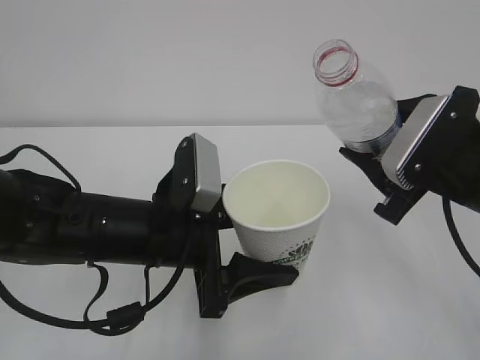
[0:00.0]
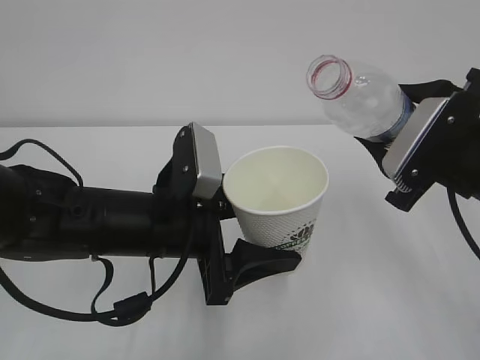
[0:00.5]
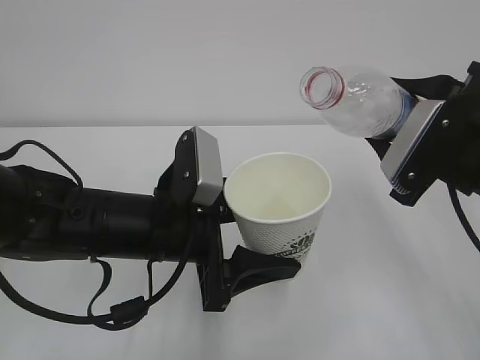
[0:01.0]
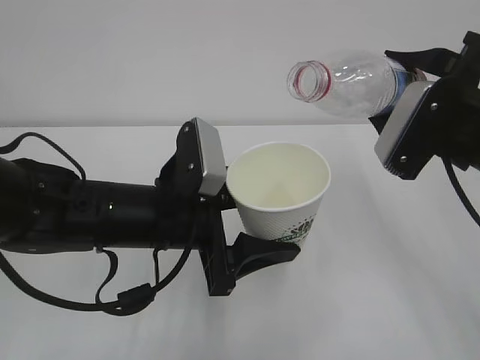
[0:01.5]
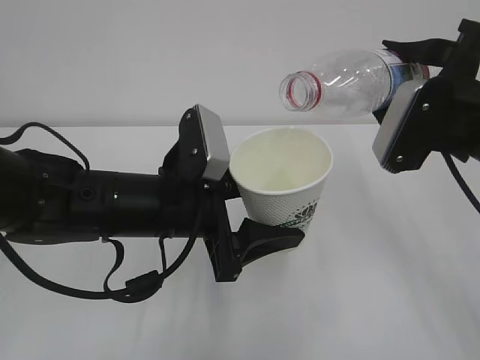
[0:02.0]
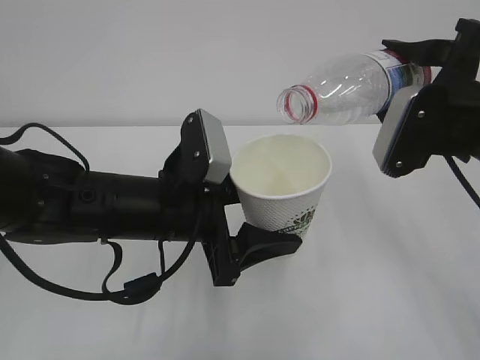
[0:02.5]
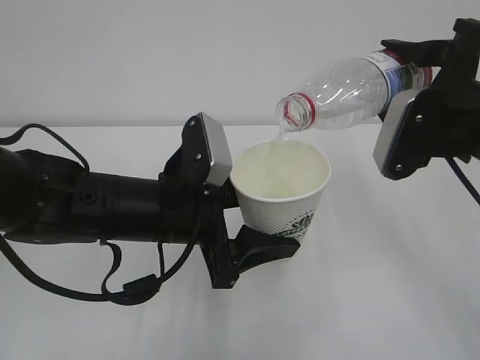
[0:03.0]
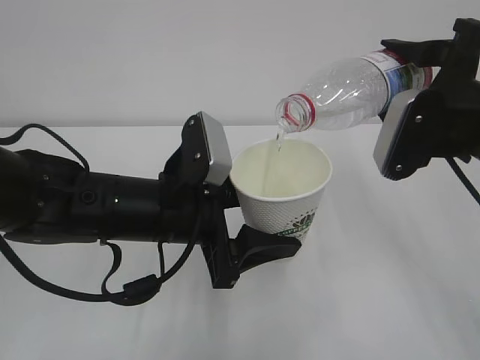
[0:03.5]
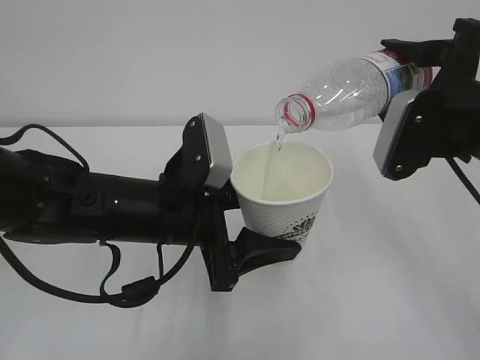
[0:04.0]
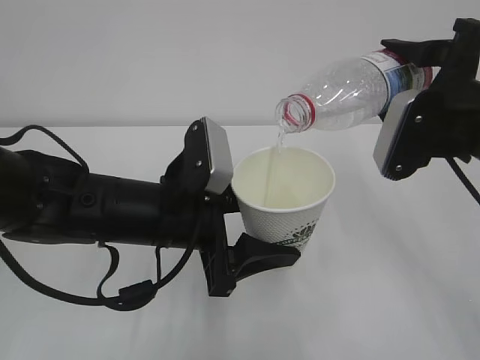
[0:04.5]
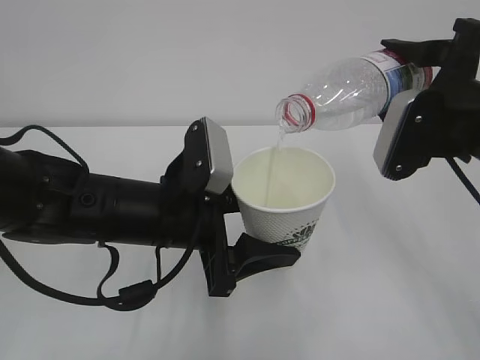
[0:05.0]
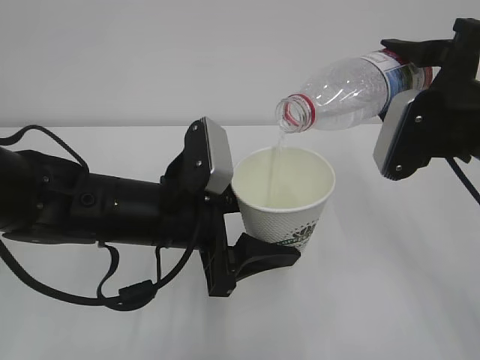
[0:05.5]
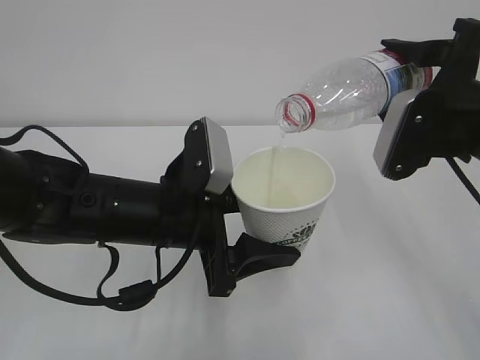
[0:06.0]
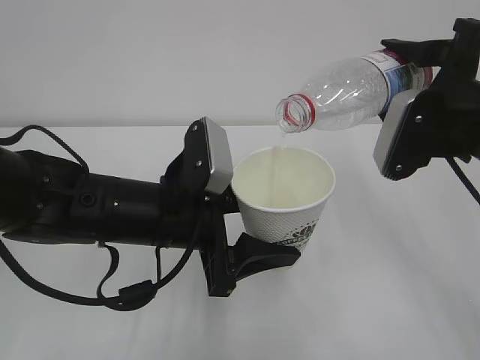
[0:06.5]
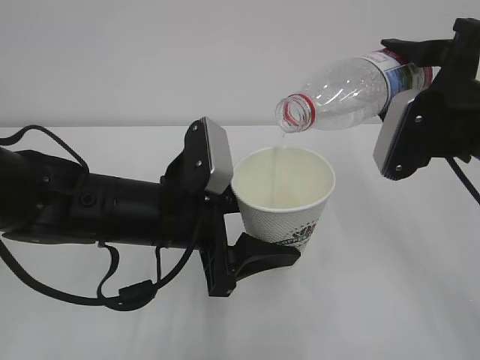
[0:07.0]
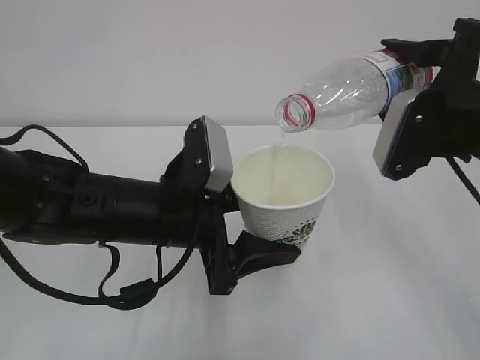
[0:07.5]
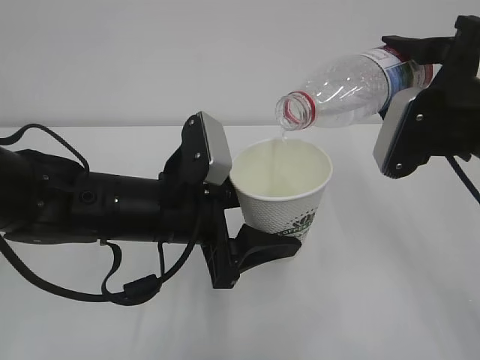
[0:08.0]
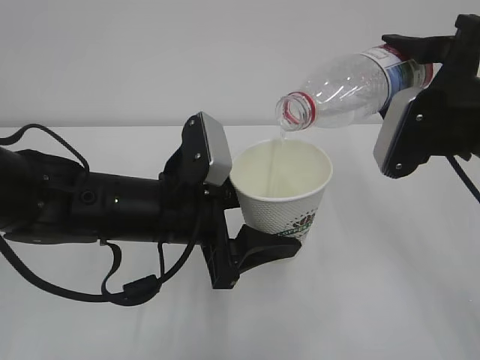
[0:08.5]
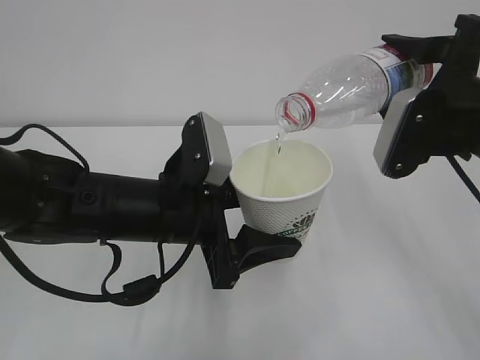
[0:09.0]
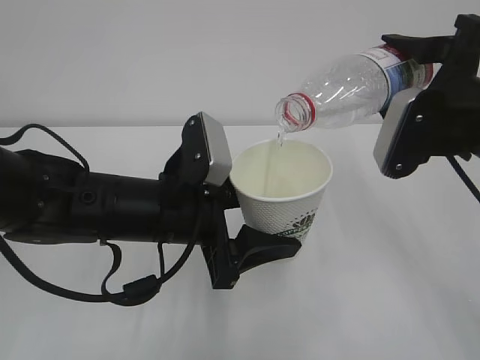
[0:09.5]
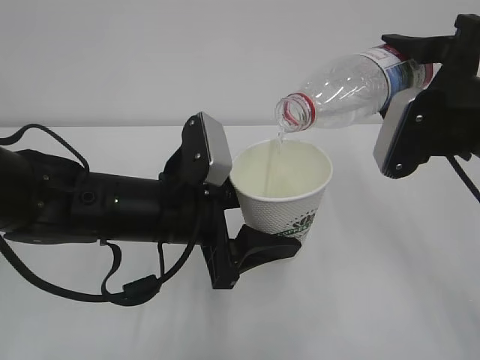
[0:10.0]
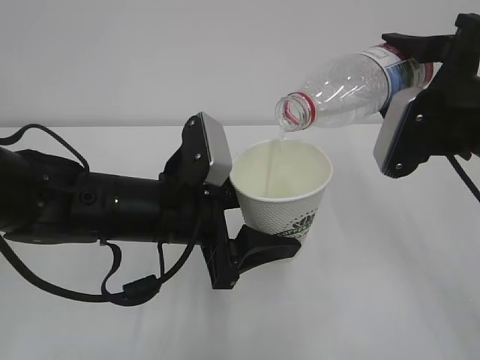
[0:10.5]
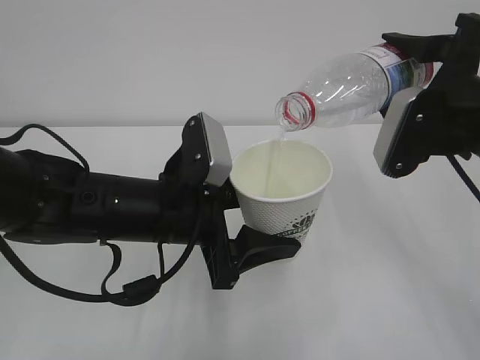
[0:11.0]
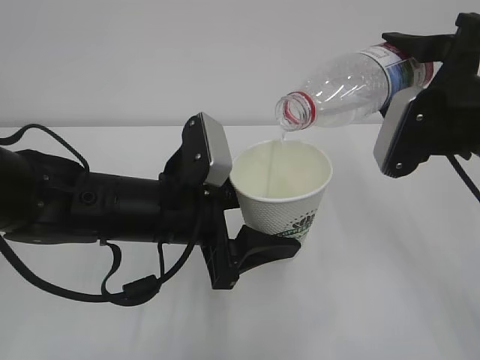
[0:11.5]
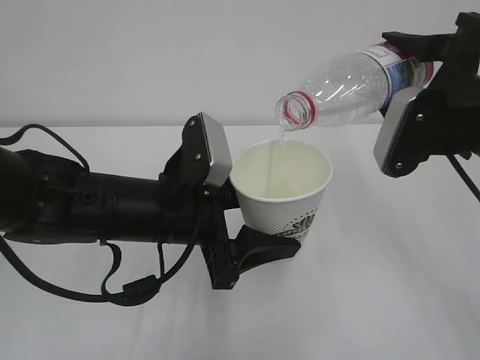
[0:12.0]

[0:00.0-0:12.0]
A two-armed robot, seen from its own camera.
0:02.0 to 0:04.0: There are only small adjustments of the grippers.
0:04.0 to 0:12.0: Neither gripper changes place.

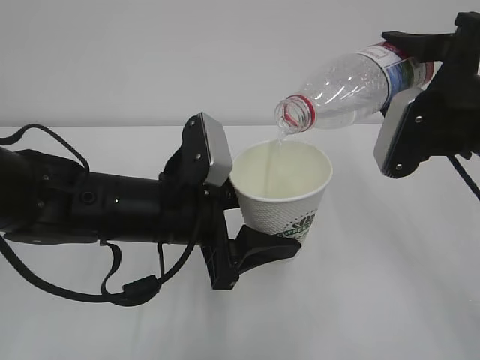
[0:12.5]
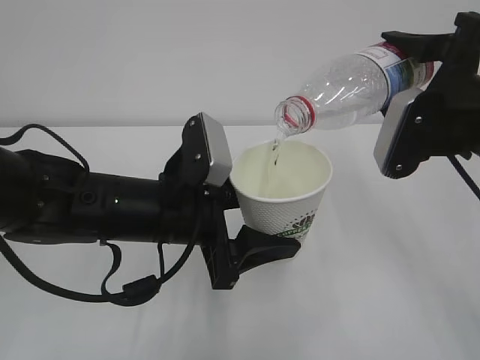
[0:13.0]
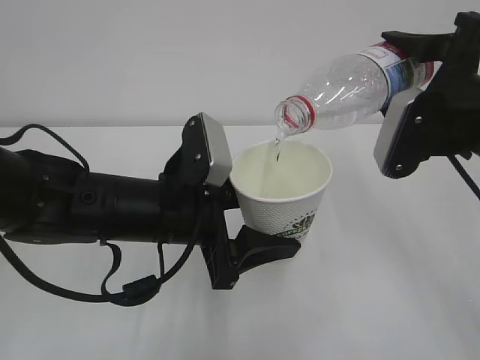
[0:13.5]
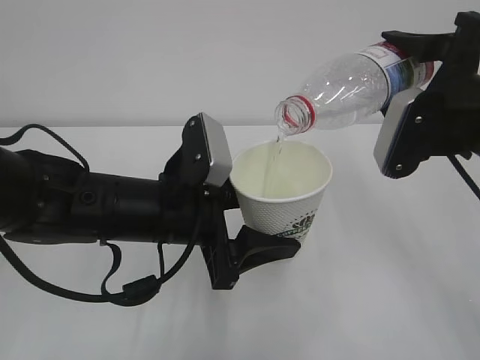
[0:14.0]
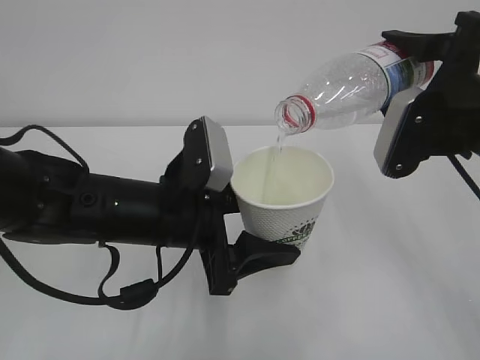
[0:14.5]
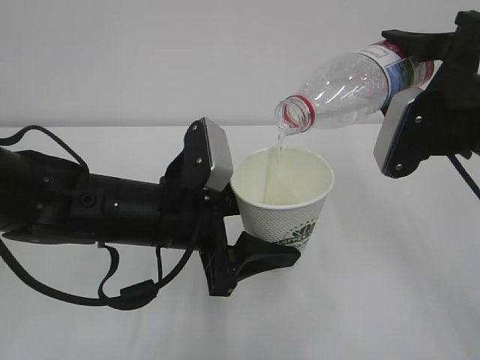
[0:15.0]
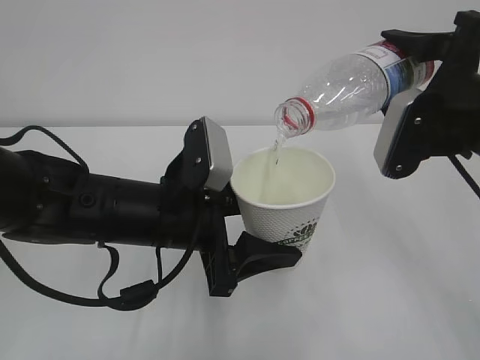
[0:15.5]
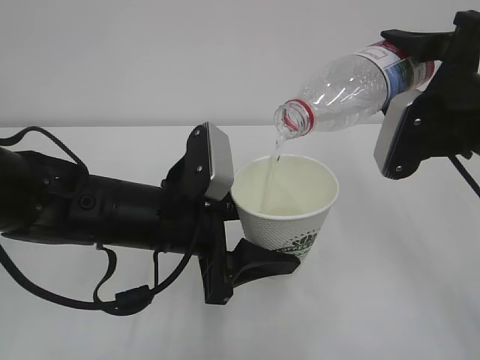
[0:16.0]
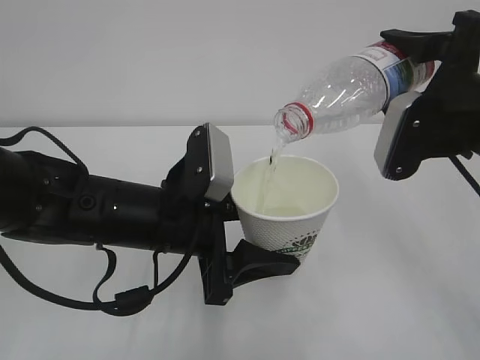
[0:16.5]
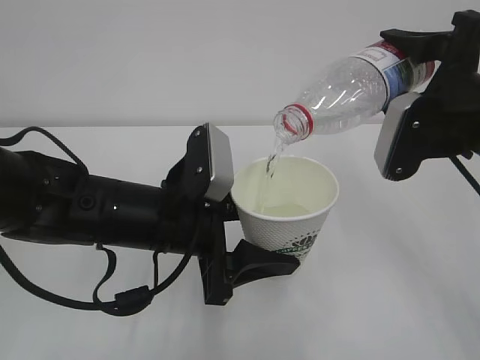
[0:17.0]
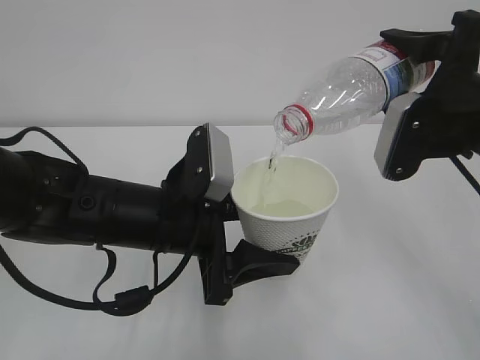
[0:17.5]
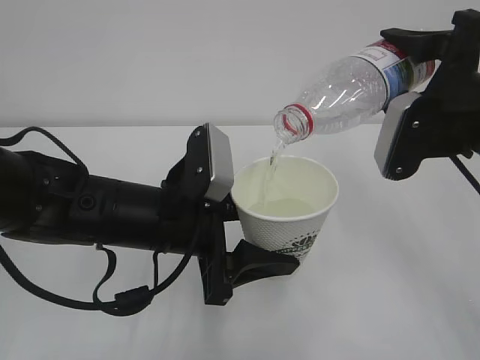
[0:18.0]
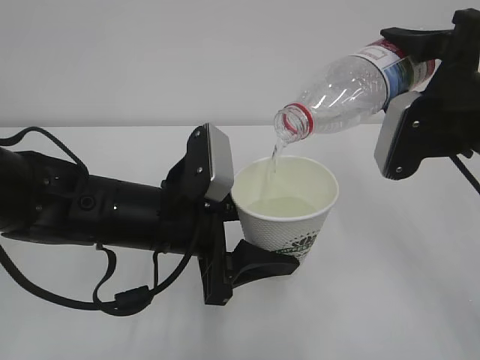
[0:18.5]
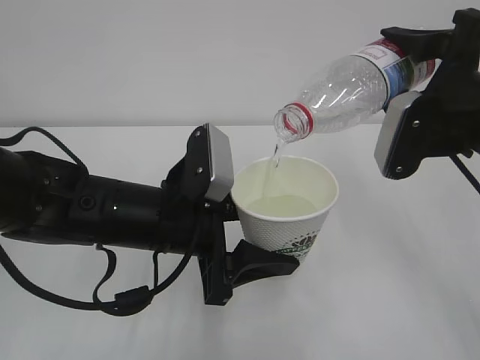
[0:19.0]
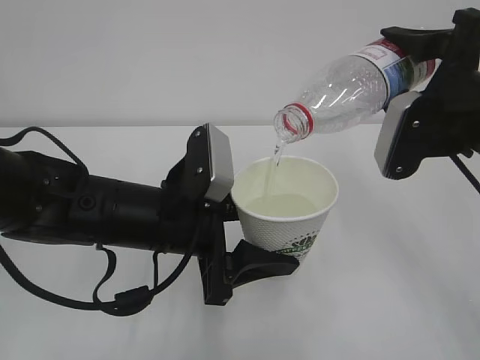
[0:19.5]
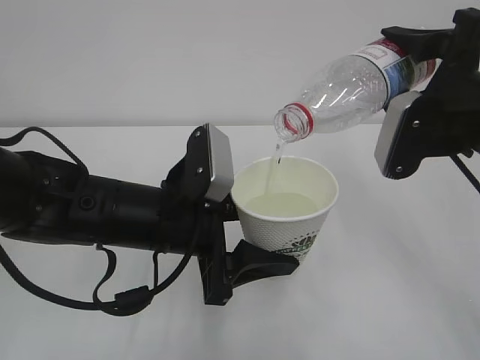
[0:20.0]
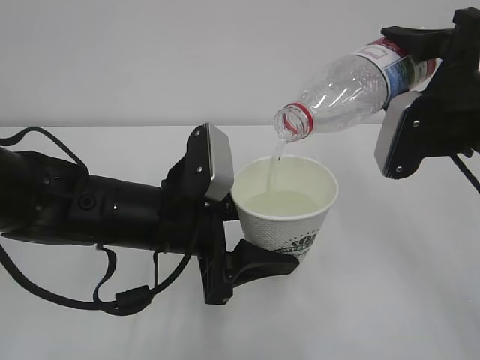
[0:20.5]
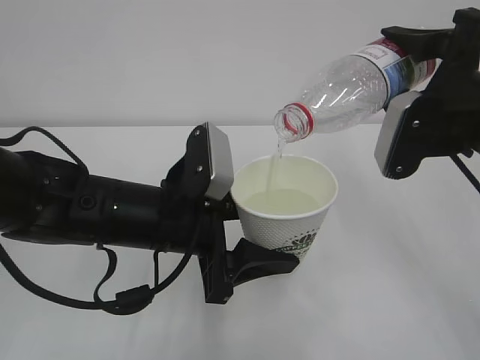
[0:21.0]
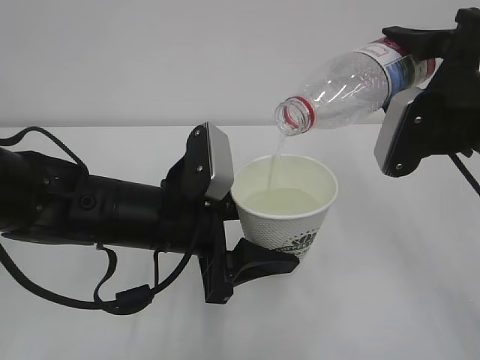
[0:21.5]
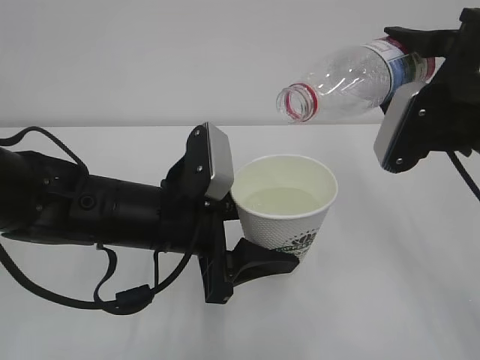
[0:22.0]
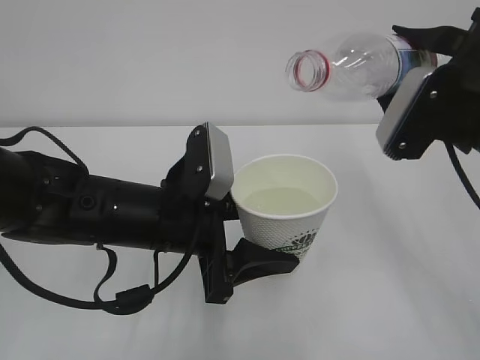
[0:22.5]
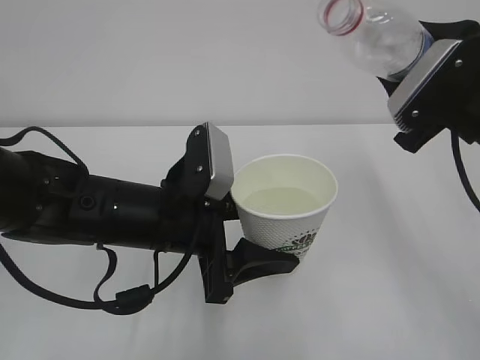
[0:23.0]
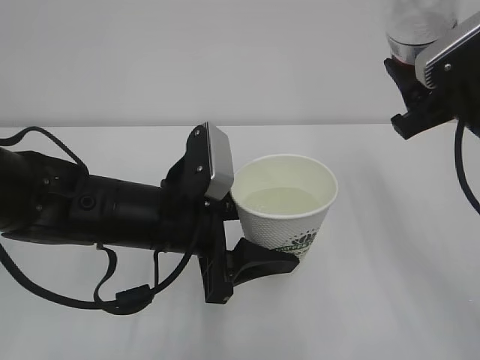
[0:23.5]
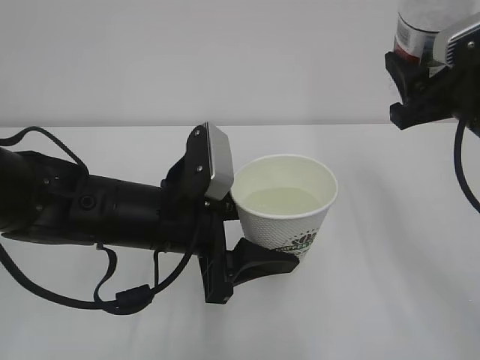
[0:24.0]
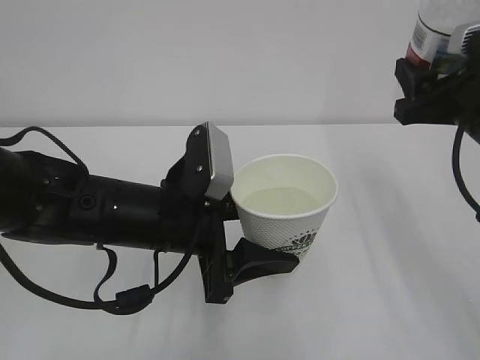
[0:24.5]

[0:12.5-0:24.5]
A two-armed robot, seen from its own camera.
0:12.5 to 0:14.5: Both grippers stay put.
0:14.5 to 0:20.5: Both grippers stay about where they are.
0:20.5 to 0:22.5: The grippers move only a little.

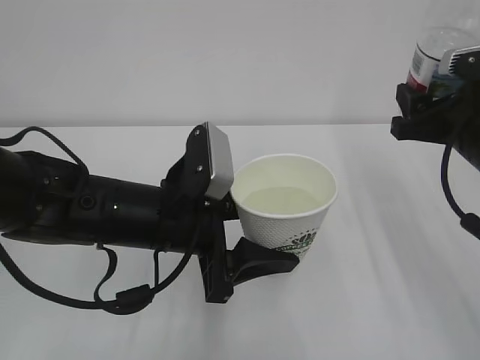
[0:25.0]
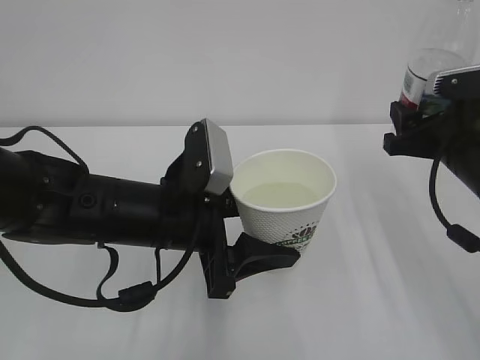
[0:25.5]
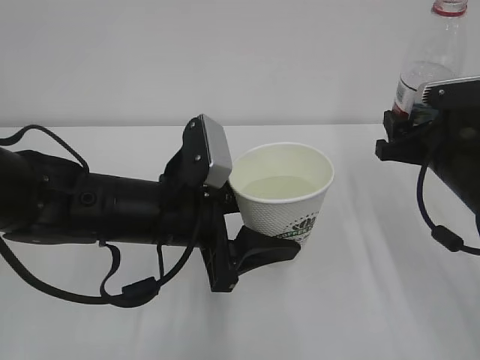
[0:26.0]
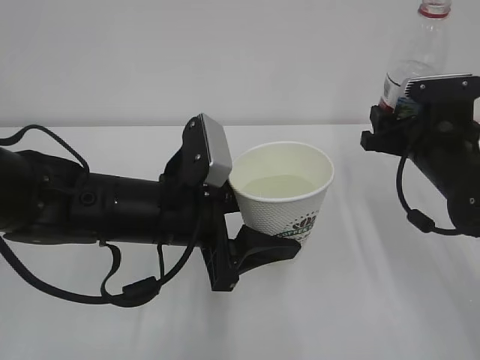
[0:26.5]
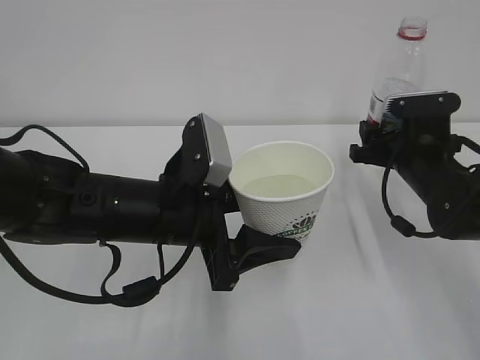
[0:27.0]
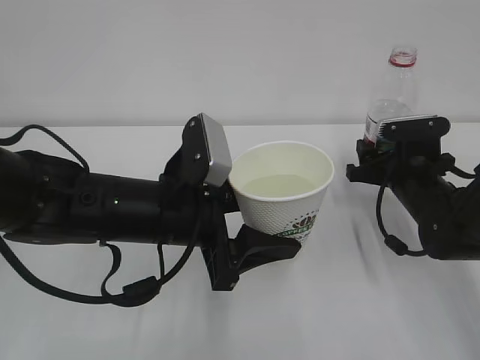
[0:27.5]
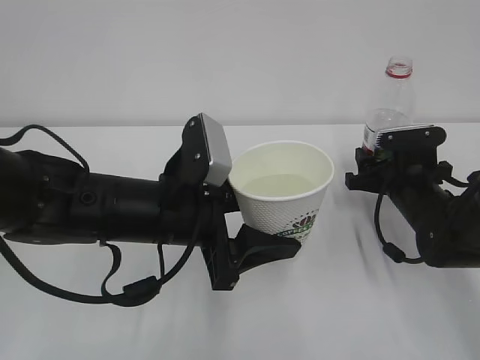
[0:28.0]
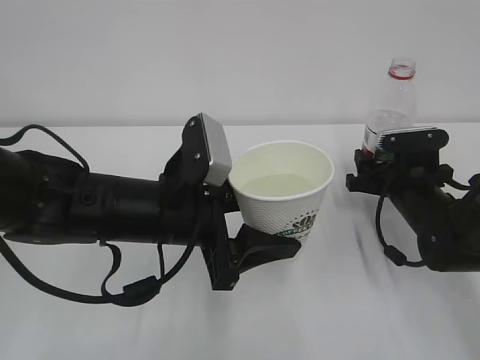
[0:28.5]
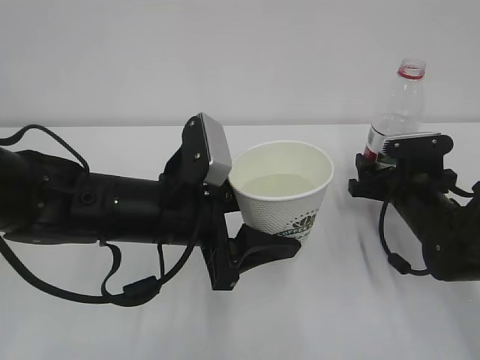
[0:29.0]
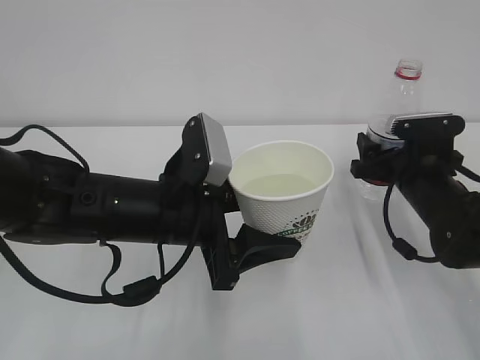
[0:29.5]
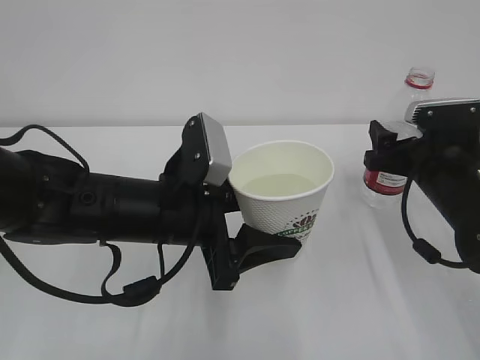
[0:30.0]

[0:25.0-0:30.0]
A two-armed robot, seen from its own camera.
0:25.0 to 0:27.5: The right gripper shifts approximately 15 cm downward and forward.
0:27.5 to 0:30.0: The right gripper moves some 5 cm, and opens up.
